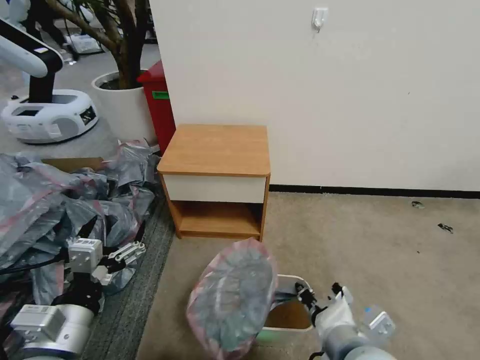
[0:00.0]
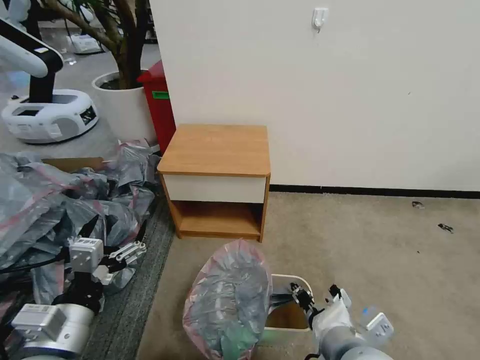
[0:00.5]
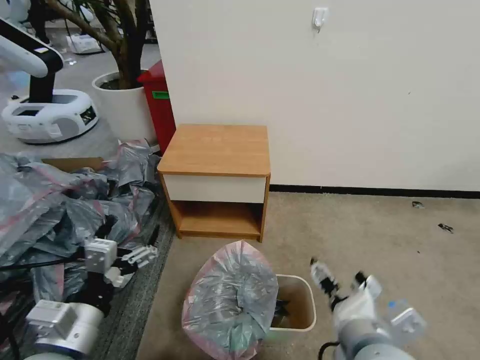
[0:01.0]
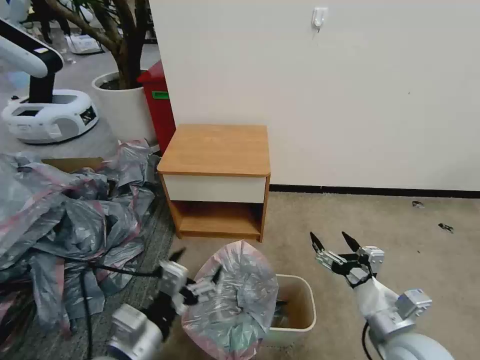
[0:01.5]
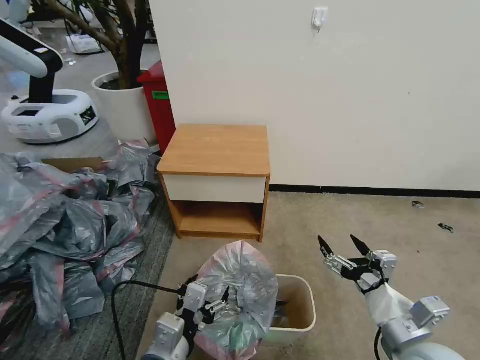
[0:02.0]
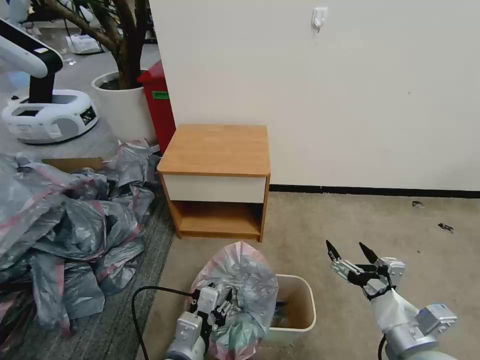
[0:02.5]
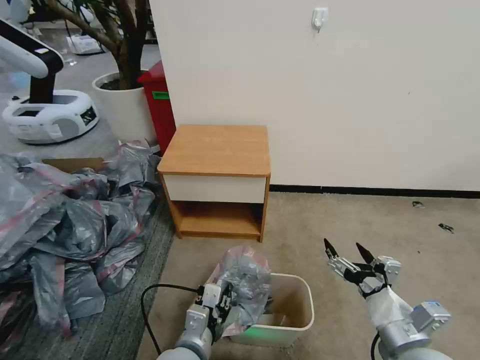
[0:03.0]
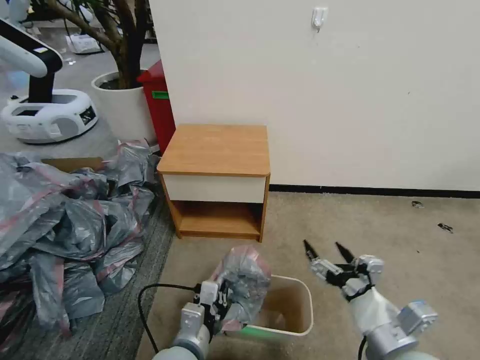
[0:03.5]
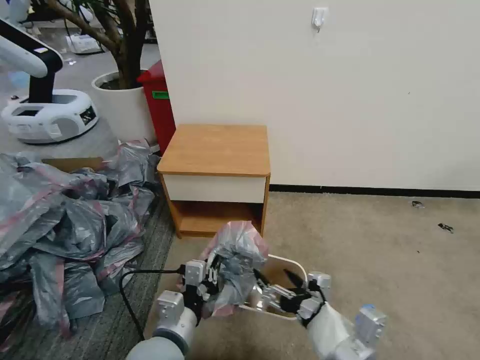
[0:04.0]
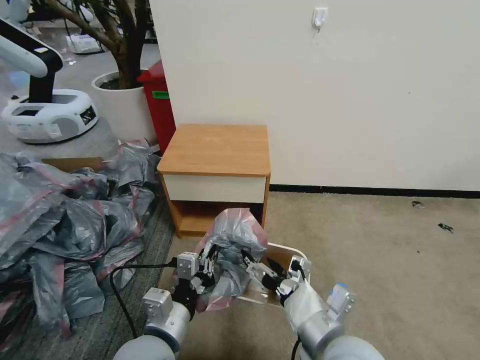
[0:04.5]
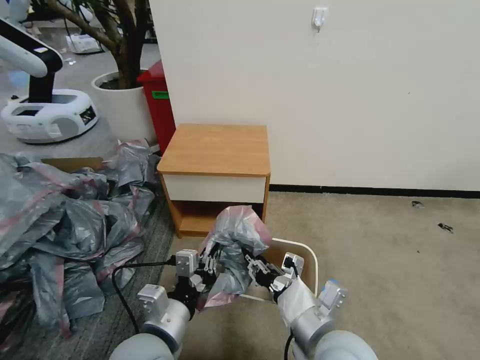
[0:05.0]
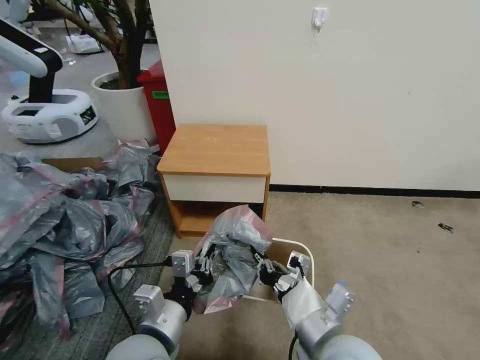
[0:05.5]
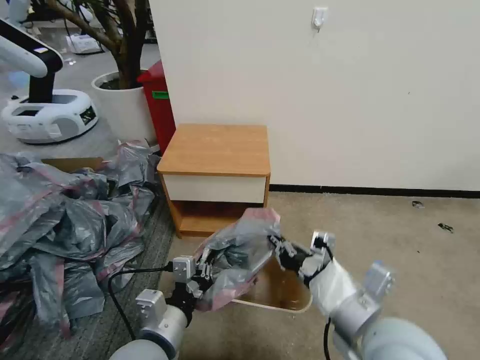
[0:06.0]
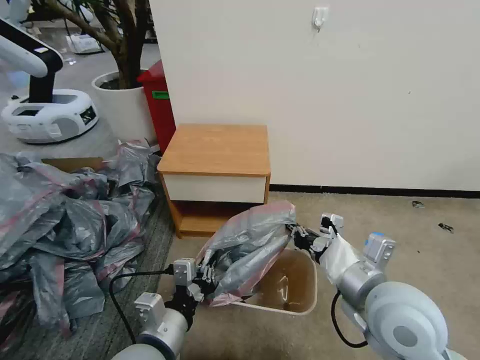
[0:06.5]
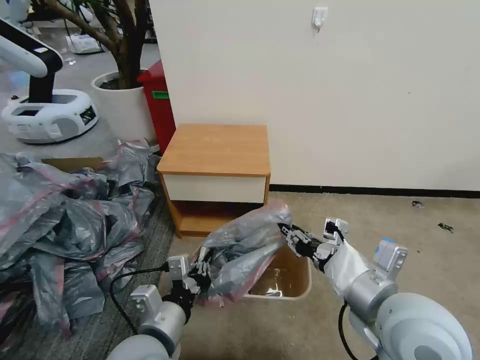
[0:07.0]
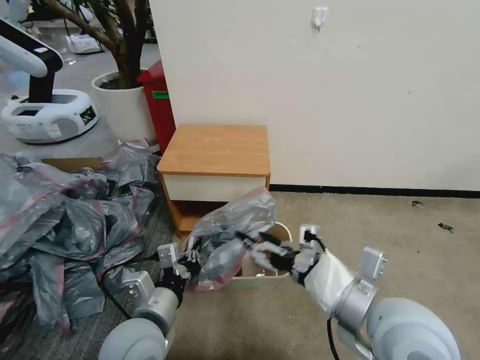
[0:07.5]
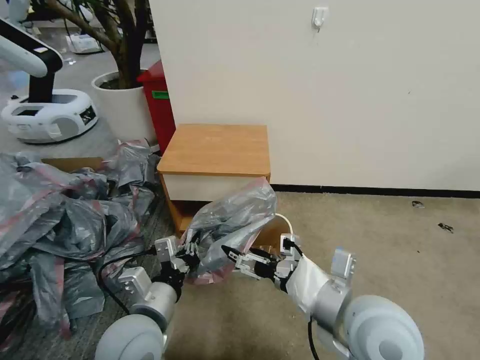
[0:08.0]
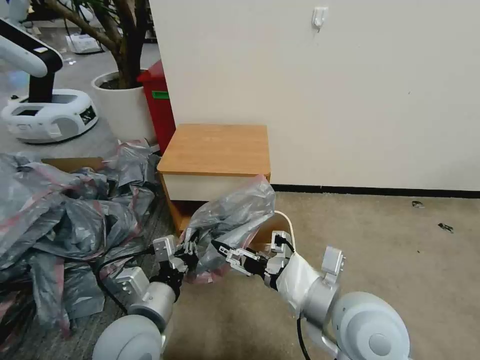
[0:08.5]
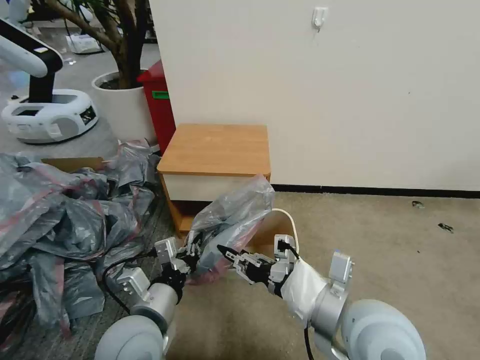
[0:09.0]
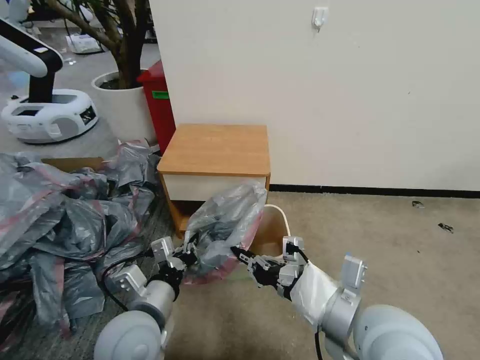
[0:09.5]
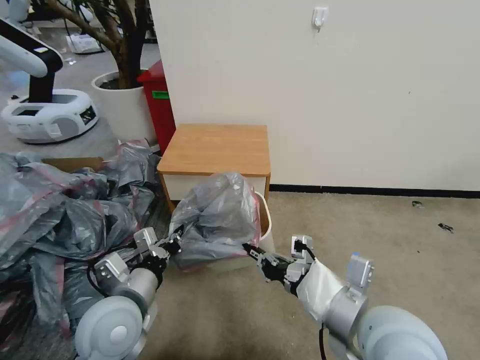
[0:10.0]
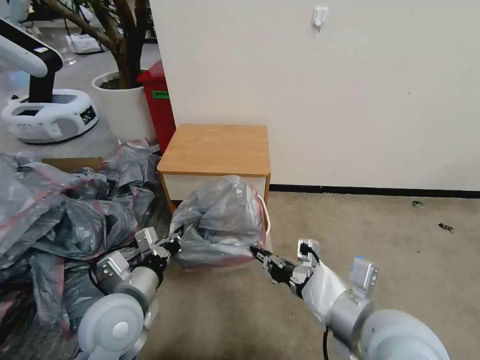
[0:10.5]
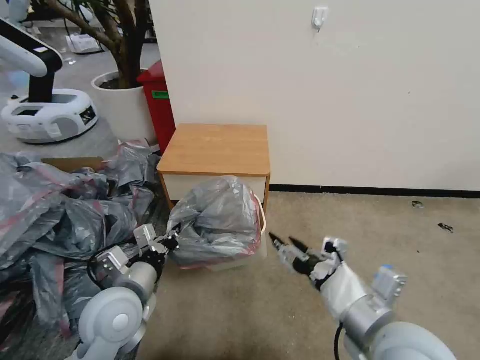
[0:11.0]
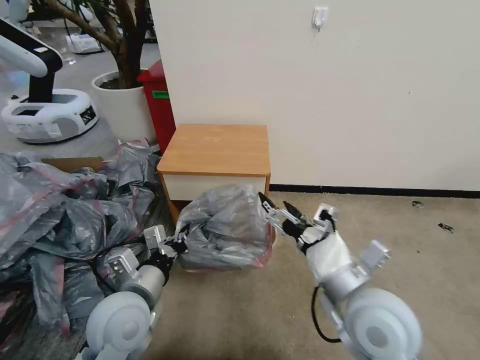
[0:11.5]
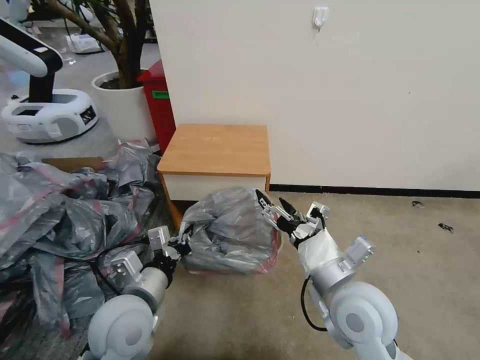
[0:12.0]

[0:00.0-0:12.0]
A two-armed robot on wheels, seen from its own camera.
Task of the whole recording: Pick up the garbage bag from the table and place it over the trash can.
0:00.0 to 0:02.0: The right gripper heads to the right, covering some 10 cm, and opens its fingers, while the left gripper moves to the right and downward, some 15 cm.
0:02.0 to 0:04.0: The right gripper heads to the left, covering roughly 10 cm; the left gripper closes.
0:04.0 to 0:06.0: The right gripper is displaced upward by about 5 cm, and closes up.
0:06.0 to 0:08.0: The right gripper opens its fingers.
0:08.0 to 0:10.0: The right gripper closes.
0:10.0 to 0:12.0: The right gripper shifts some 5 cm forward, and opens its fingers.

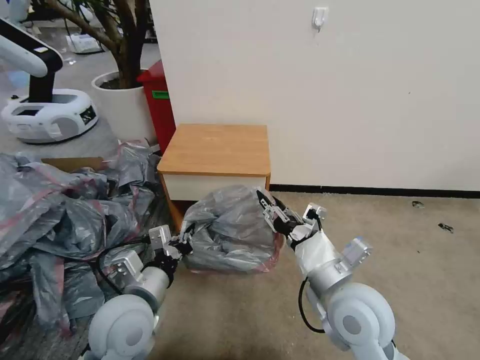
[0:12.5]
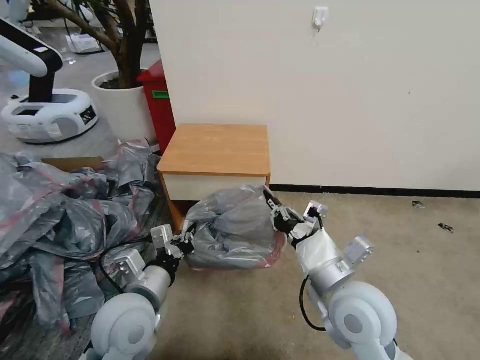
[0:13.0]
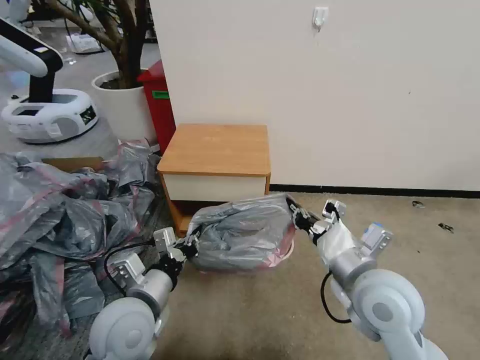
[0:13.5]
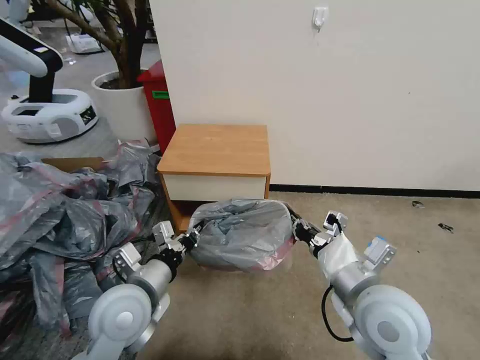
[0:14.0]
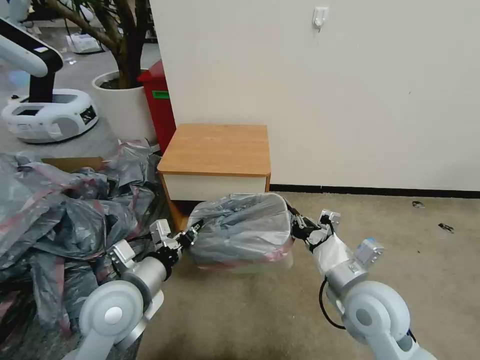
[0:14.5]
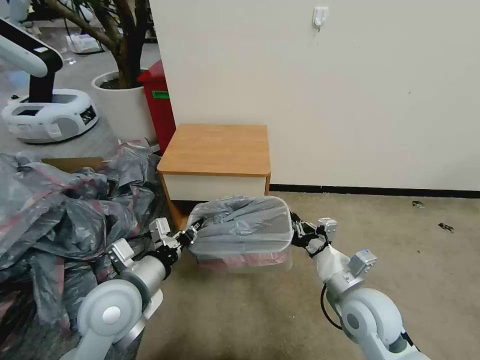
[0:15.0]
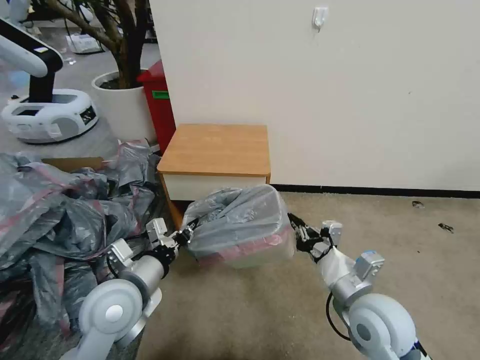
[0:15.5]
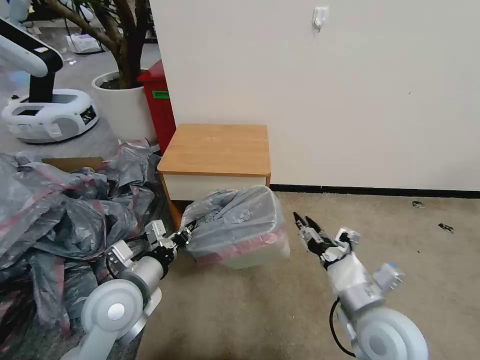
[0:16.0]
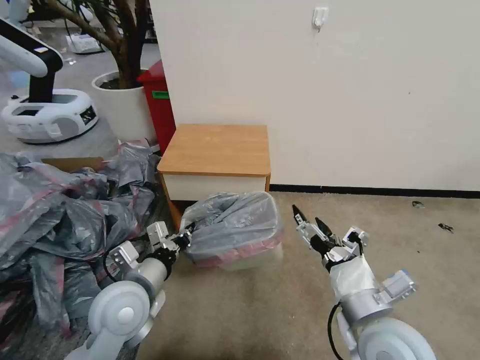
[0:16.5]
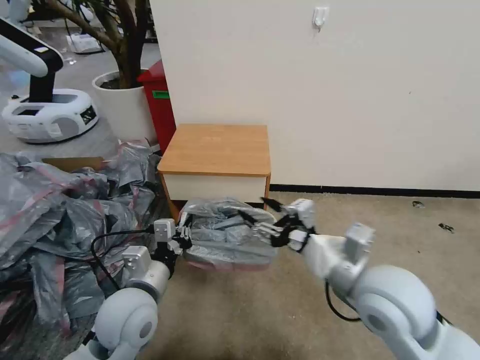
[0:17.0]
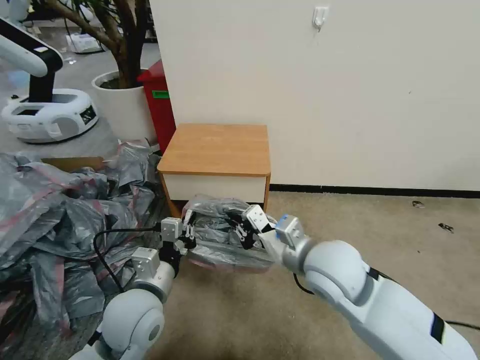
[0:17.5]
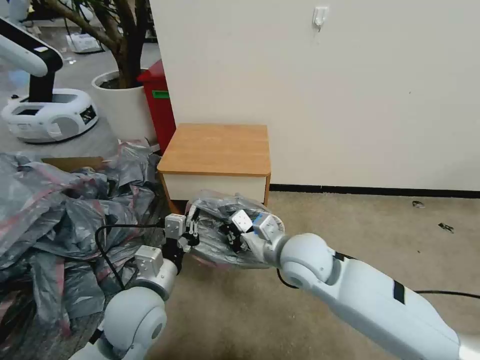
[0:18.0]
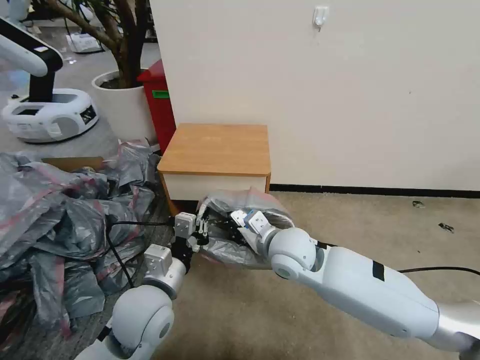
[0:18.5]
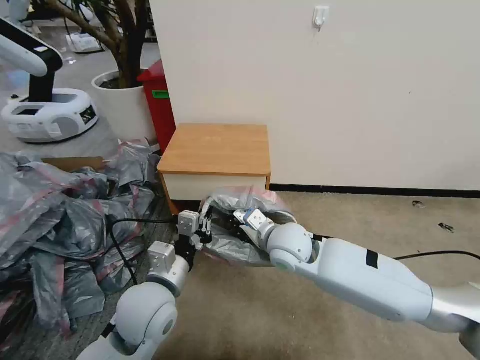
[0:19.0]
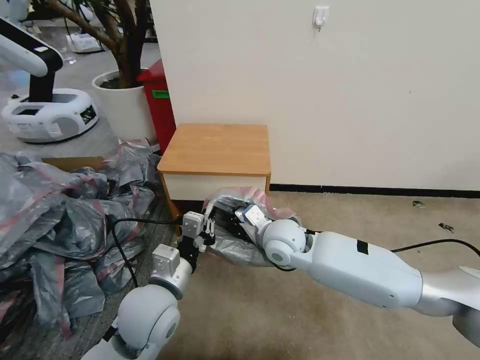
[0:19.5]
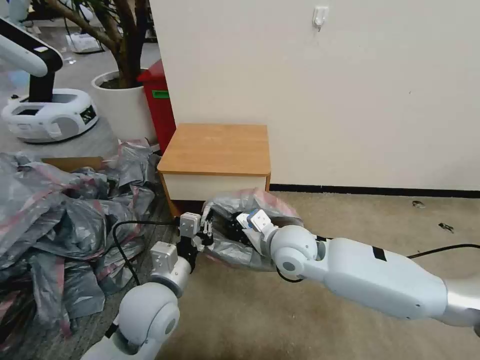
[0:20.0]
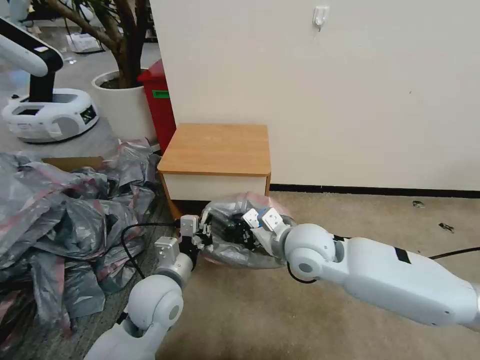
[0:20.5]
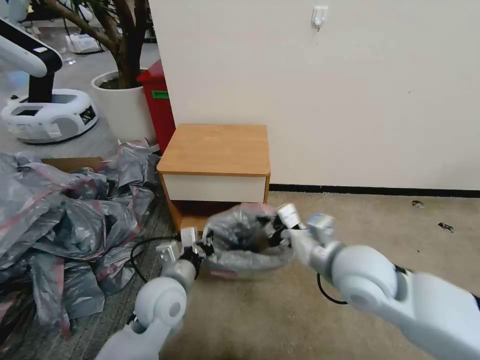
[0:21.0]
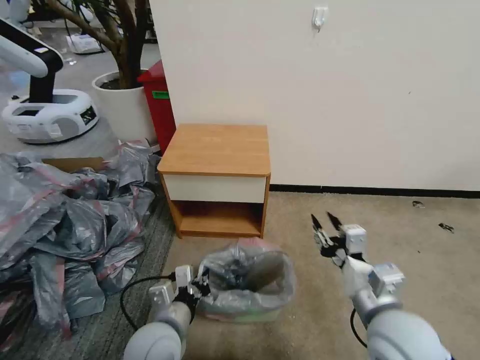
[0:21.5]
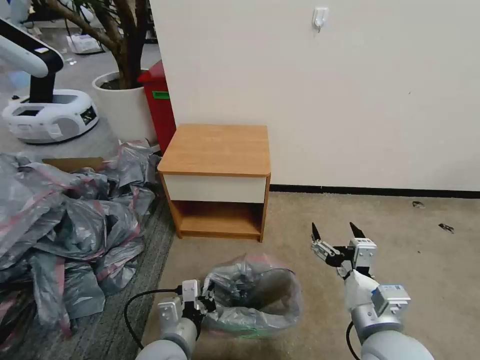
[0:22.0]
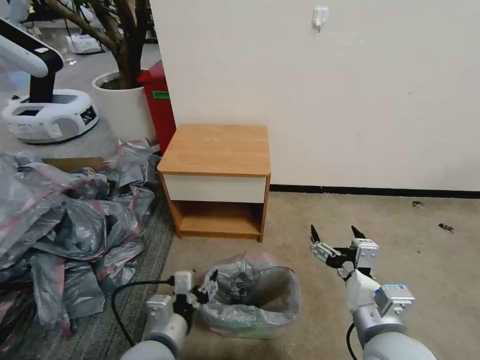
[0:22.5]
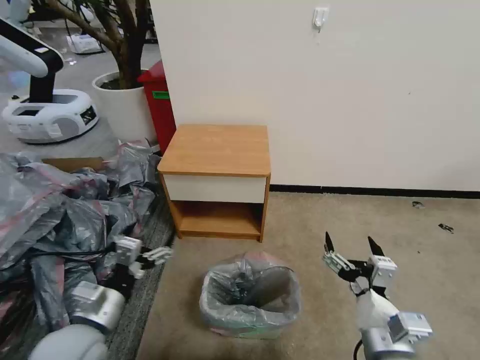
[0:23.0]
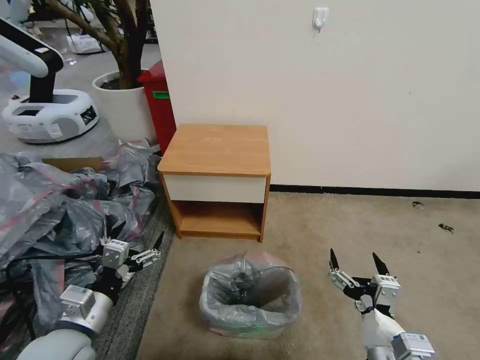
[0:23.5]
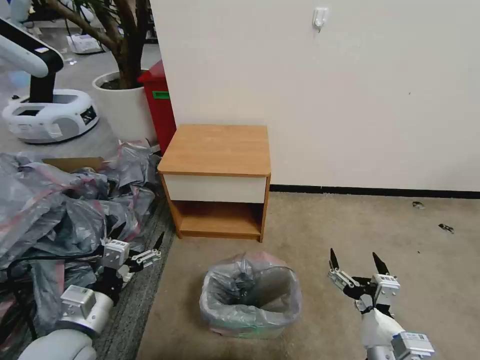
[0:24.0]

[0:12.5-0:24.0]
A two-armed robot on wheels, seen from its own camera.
Task of the whole recording: Pick up the garbage bag from the table and place it over the trash can.
0:12.5 to 0:14.5: The right gripper moves approximately 5 cm, and closes up.
0:14.5 to 0:16.5: The right gripper moves backward, roughly 5 cm, and opens.
0:16.5 to 0:18.5: The right gripper moves forward and to the left, about 20 cm, and closes up.
0:18.5 to 0:20.0: The grippers make only small movements.
0:20.0 to 0:22.0: The left gripper moves downward and backward, about 10 cm. Meanwhile the right gripper is displaced backward and to the right by roughly 25 cm, and opens up.
0:22.0 to 0:24.0: The right gripper heads backward, covering approximately 5 cm, while the left gripper moves to the left and upward, about 15 cm, and opens its fingers.

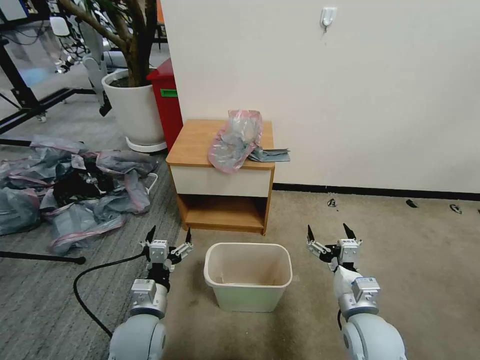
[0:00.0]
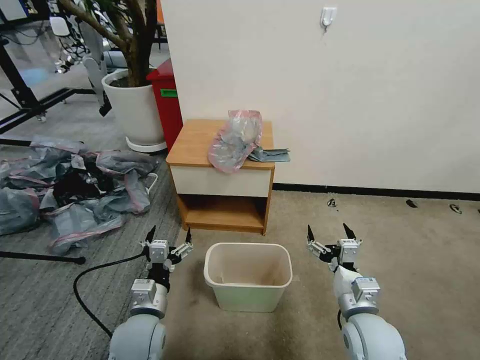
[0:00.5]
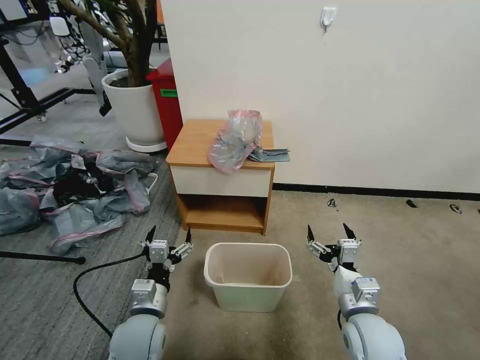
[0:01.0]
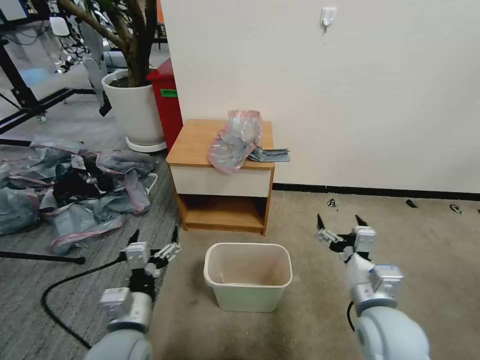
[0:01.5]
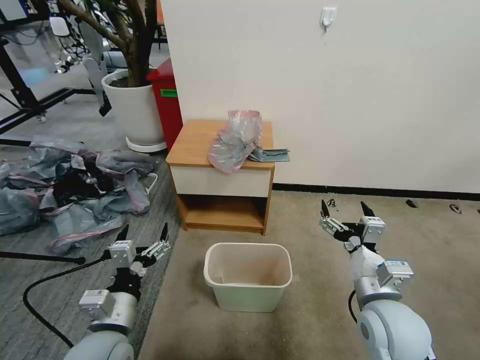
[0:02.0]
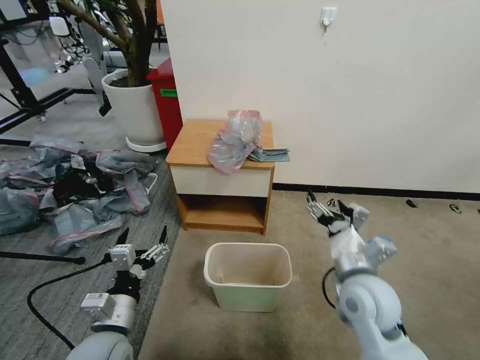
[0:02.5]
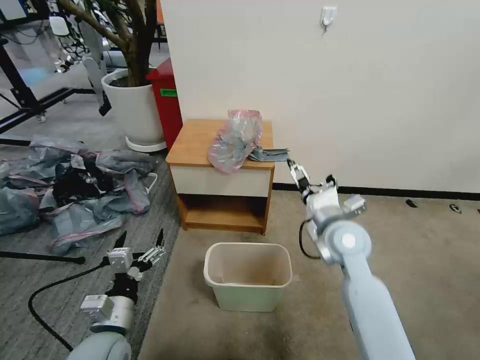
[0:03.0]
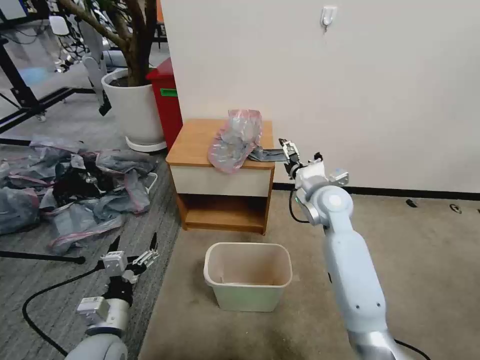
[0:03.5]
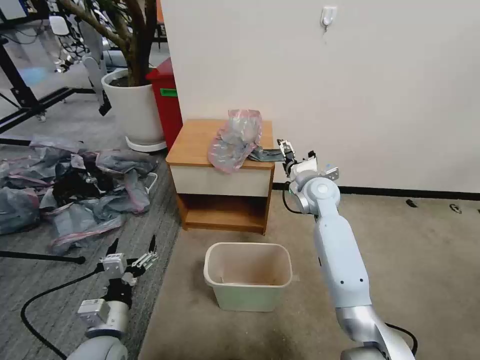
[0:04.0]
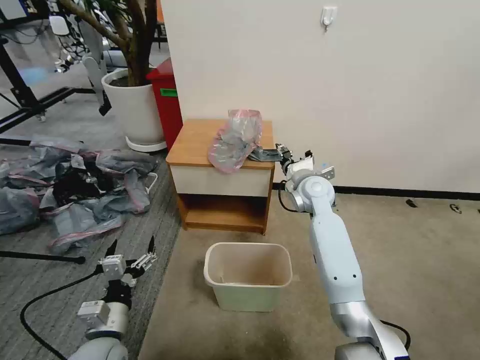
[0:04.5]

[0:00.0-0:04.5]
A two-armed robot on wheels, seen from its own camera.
Task of the whole recording: Pick up the garbage bag from the table and place it over the trash can.
0:02.0 to 0:04.5: The left gripper travels downward by roughly 5 cm, while the right gripper travels forward by roughly 30 cm, and closes.
